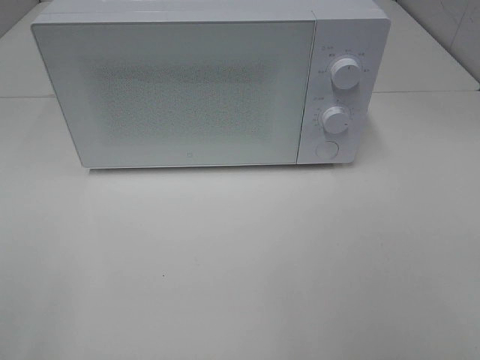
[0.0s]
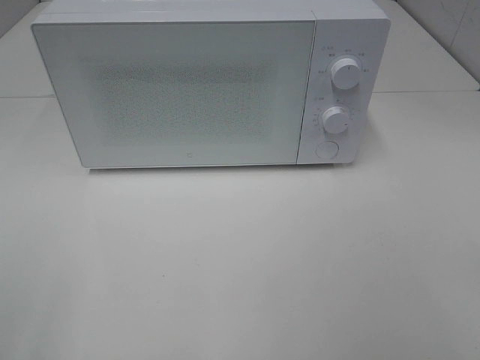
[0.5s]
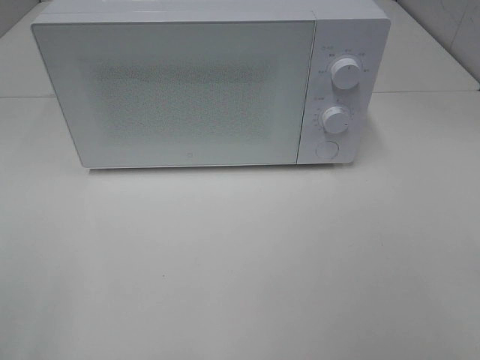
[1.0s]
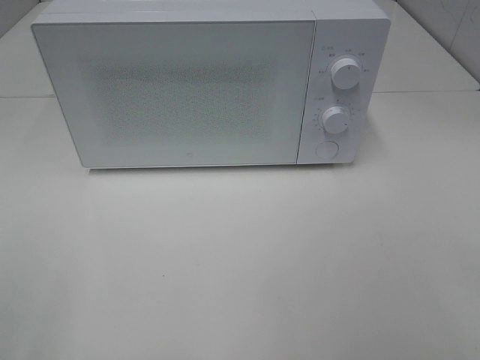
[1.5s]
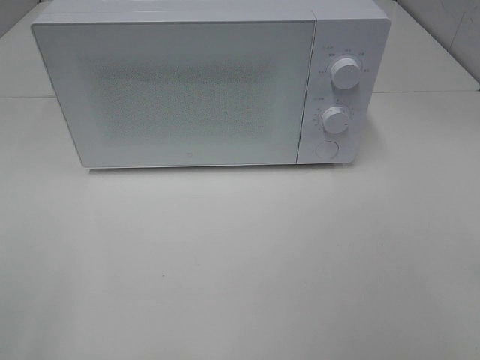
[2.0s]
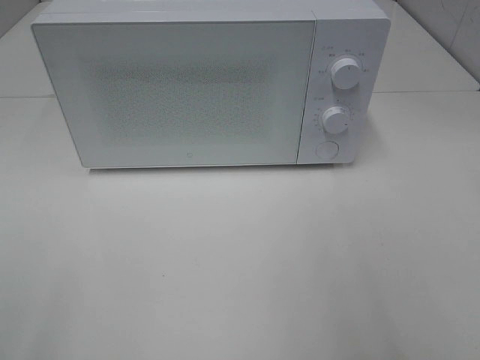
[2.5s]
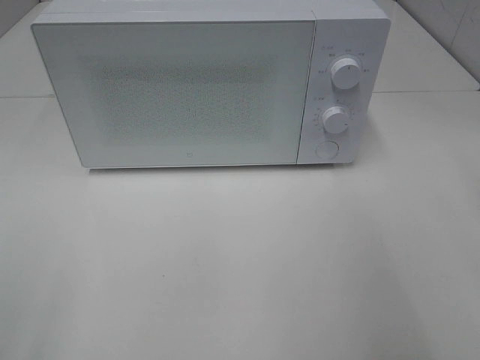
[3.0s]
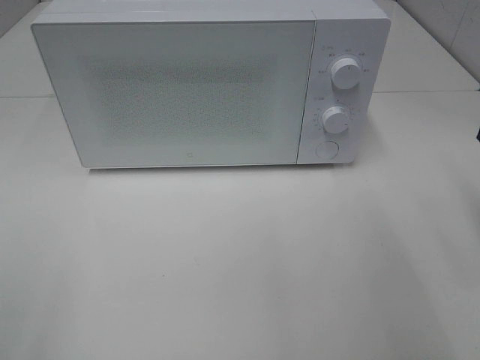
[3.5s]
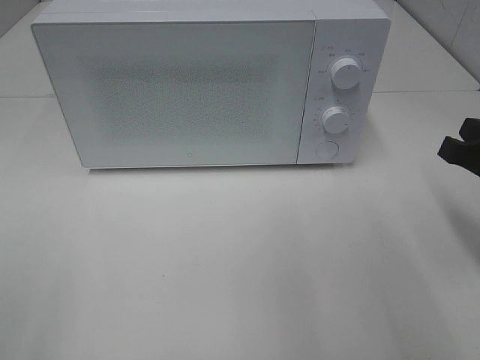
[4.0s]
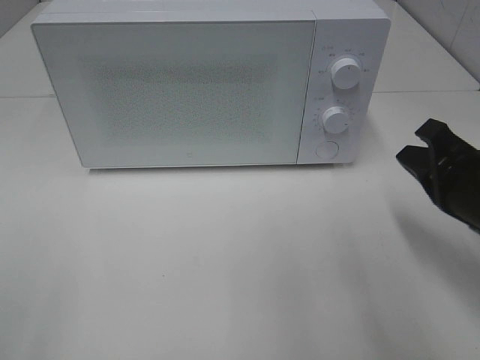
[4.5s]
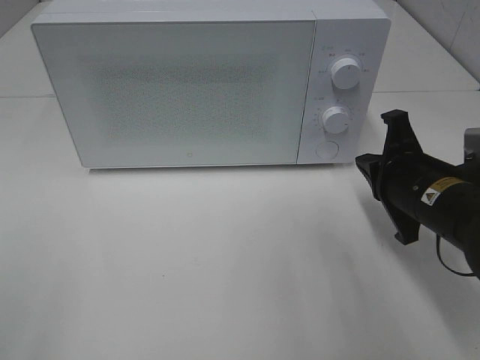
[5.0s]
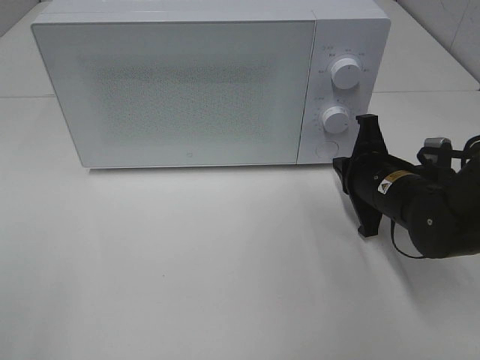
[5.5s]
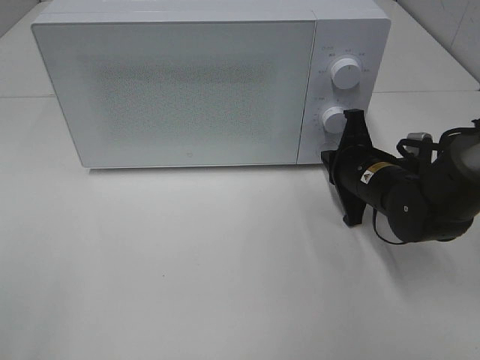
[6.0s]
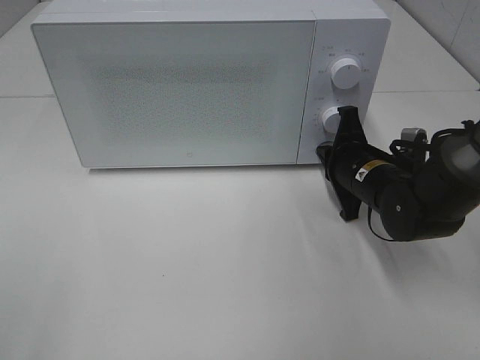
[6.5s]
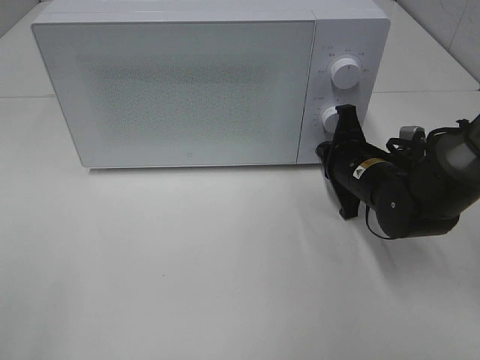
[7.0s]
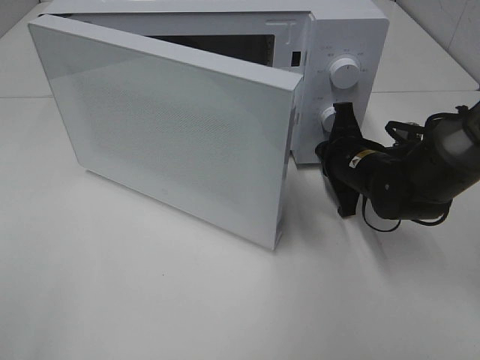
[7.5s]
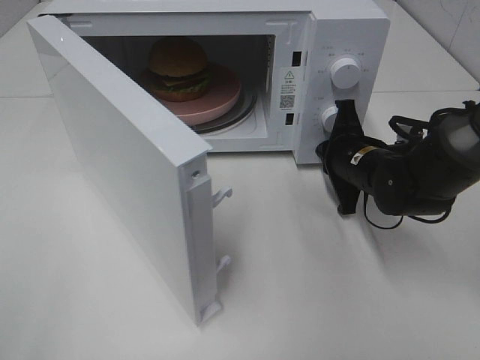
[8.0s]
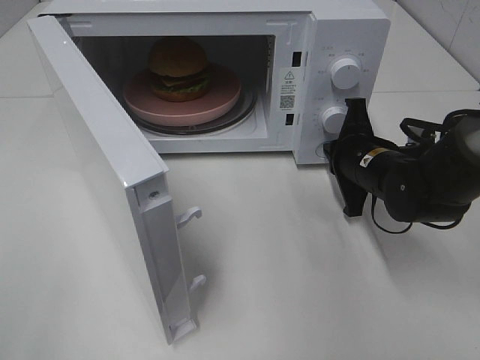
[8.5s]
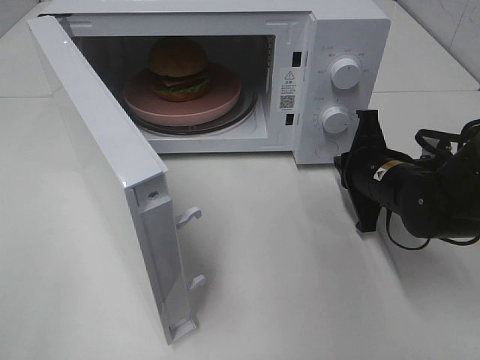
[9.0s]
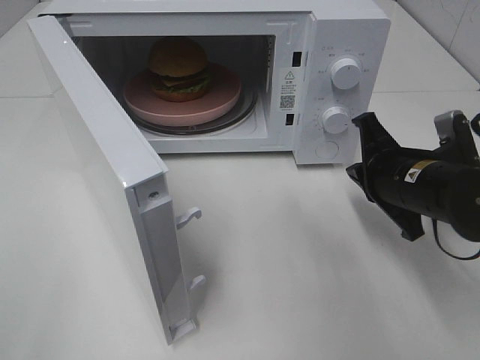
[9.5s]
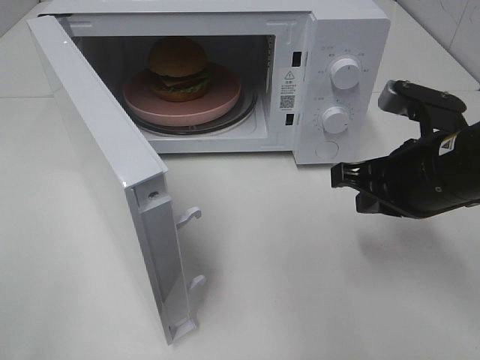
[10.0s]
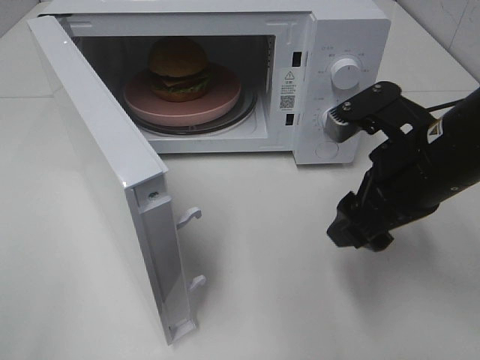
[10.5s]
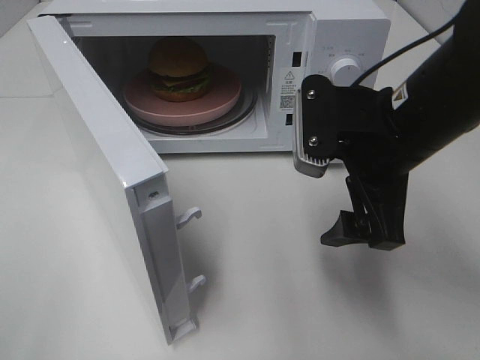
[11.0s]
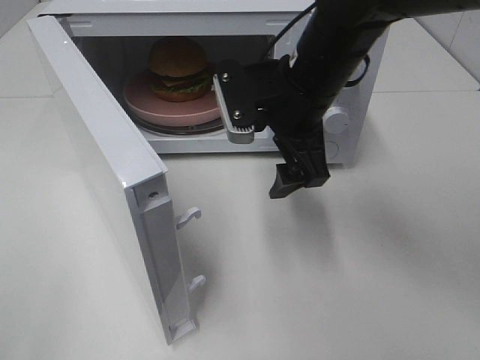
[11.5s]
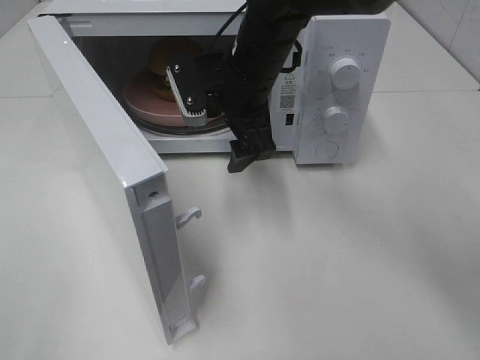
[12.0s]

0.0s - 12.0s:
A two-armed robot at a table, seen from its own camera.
Task of the whole recording: Heat the burger.
Step, 0.0s - 8.5s: Right hand: press the switch.
2.0s - 4.0s: The right gripper goes some 25 cm forward and downward, and closes its fingers.
4.0s - 6.0s: The right gripper shifts about 20 cm forward, to the left and downward.
8.0s - 10.0s: The right gripper is displaced backward and upward by some 15 cm.
10.0s - 12.0s: The right gripper is displaced to the left and forward by about 25 cm, and opens up.

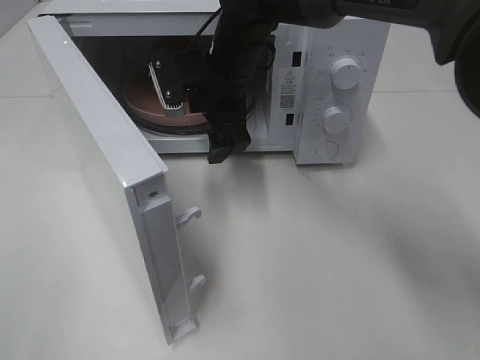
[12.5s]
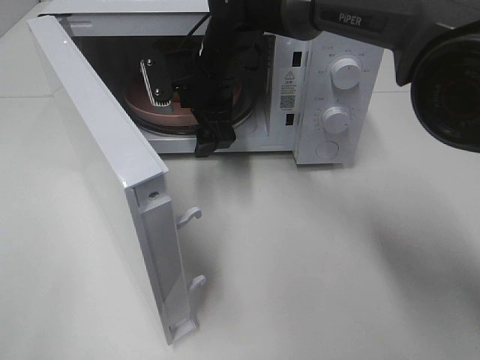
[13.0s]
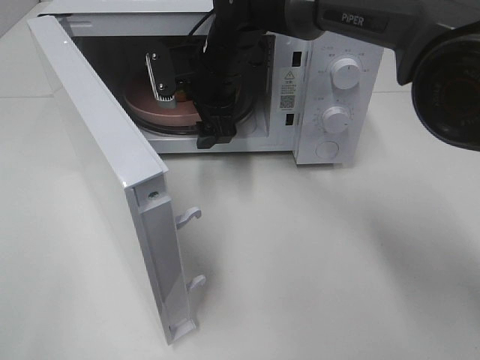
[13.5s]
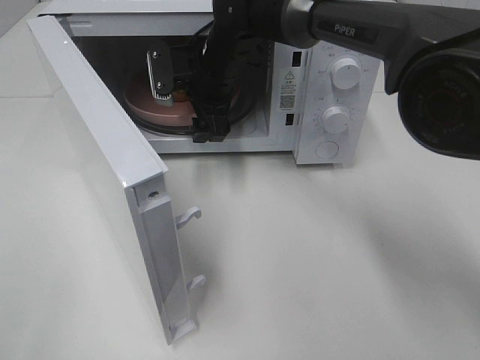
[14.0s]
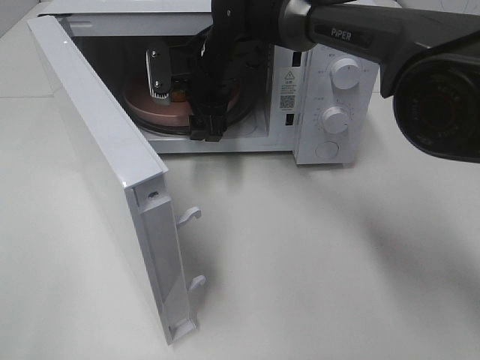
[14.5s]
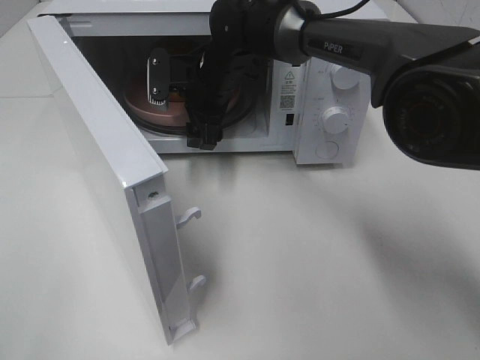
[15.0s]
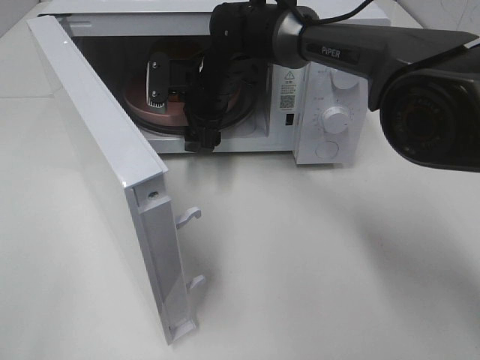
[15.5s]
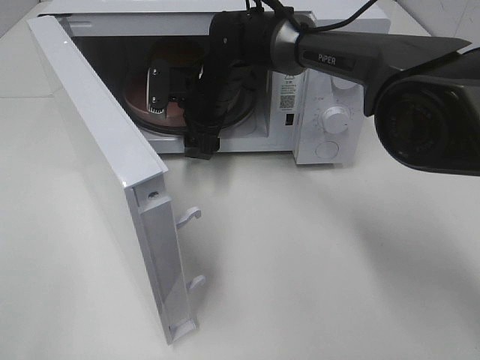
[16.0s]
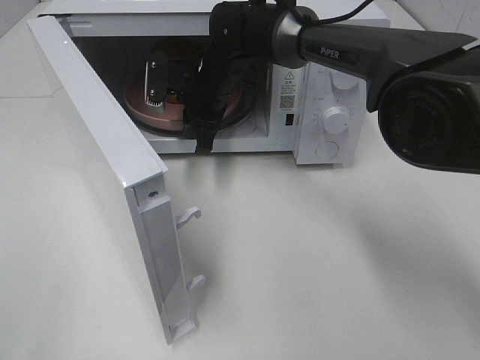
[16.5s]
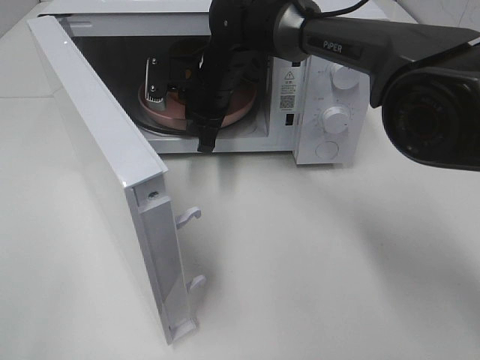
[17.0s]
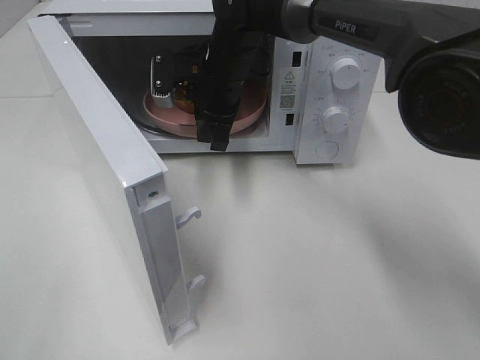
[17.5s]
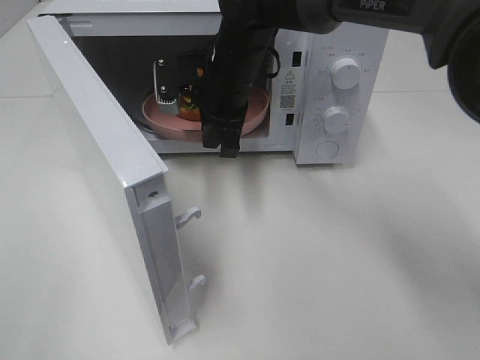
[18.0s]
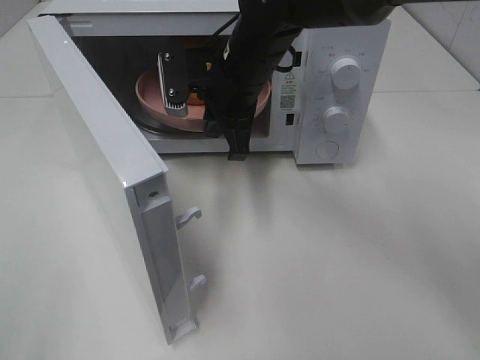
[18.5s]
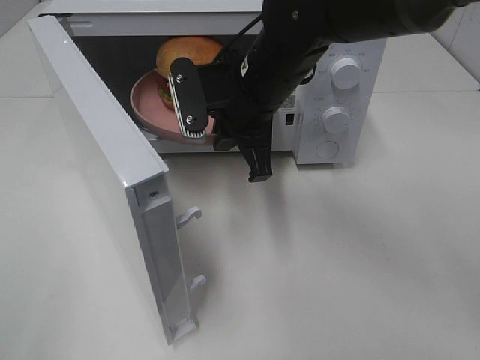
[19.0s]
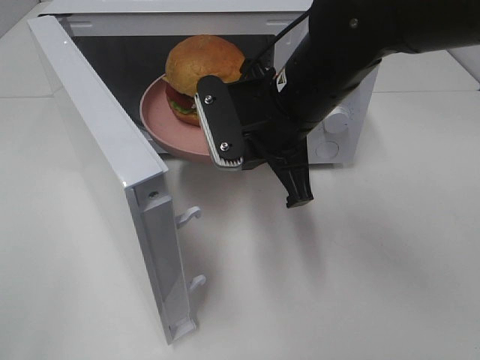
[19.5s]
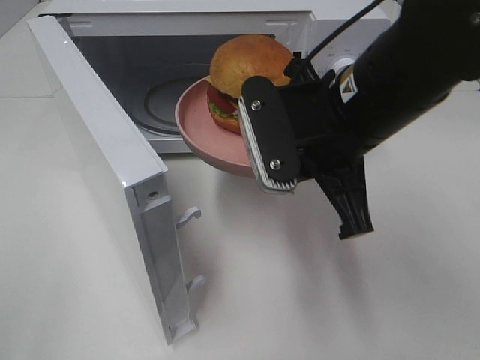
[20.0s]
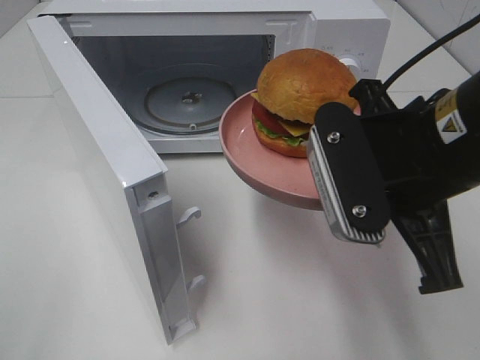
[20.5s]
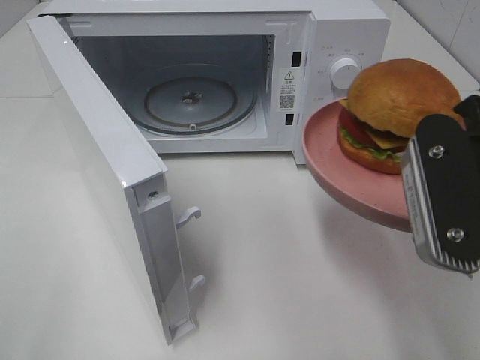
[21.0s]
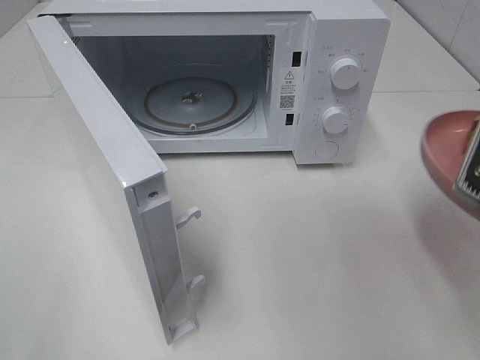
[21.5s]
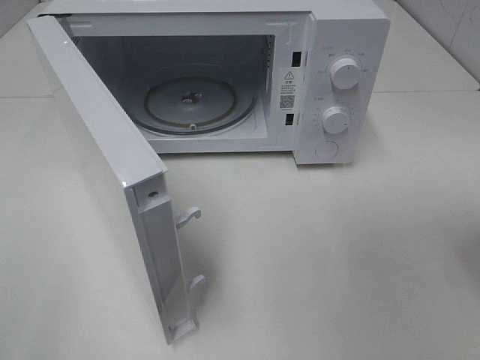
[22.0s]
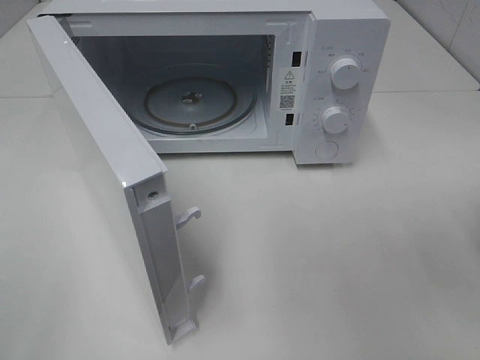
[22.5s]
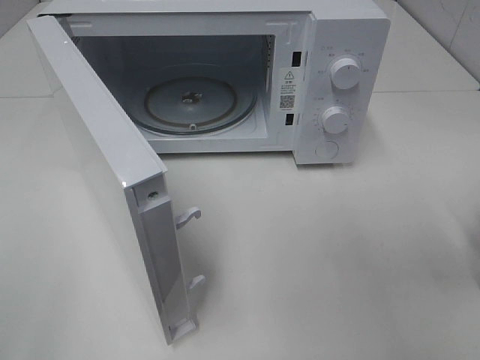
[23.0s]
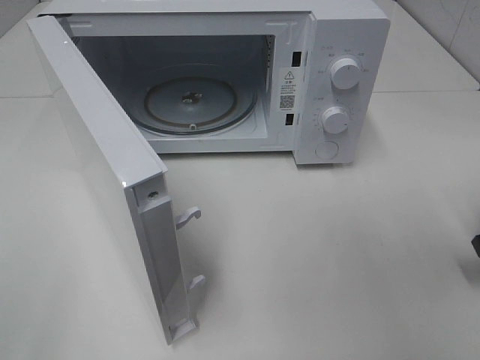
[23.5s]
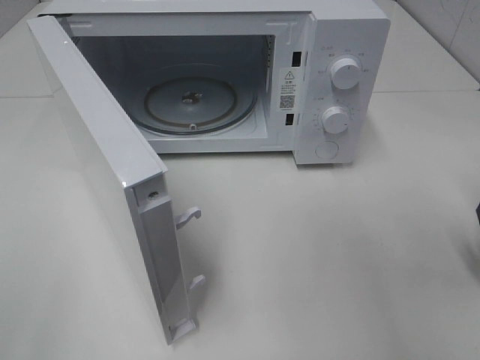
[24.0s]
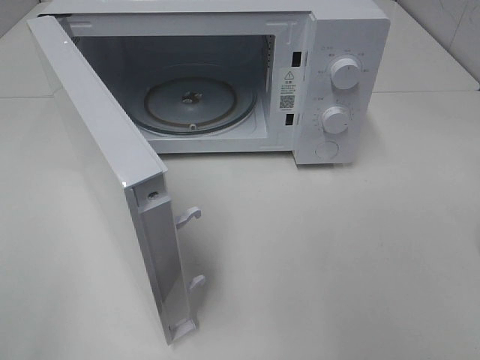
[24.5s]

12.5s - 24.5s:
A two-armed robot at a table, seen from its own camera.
Task of the whole recording: Heat the burger.
Step, 12.5s - 16.5s: Right hand: grab the plate with the hamburger.
Step, 17.0s - 23.0s: Right hand: place the plate on the table.
12.5s - 14.5s: The grippers move only a little.
14.5s - 16.5s: The right gripper closes up.
16.5s - 18.5s: The right gripper goes approximately 10 cm backward and upward.
18.5s - 20.5s: The right gripper goes approximately 25 cm backward and to the right.
20.5s - 22.5s: The right gripper goes approximately 20 cm to the right.

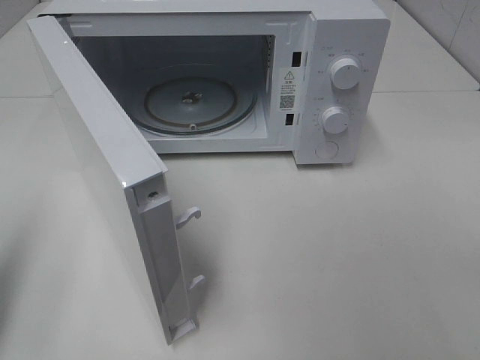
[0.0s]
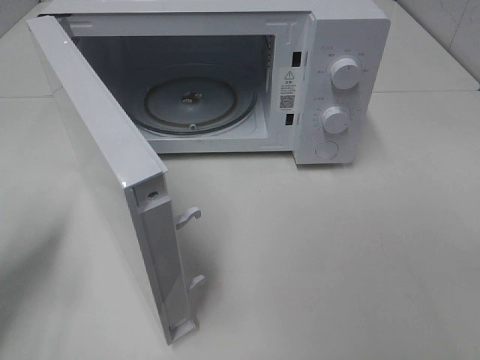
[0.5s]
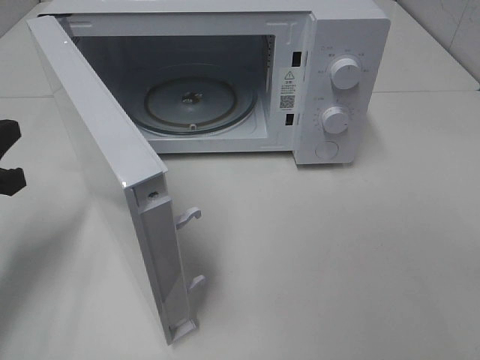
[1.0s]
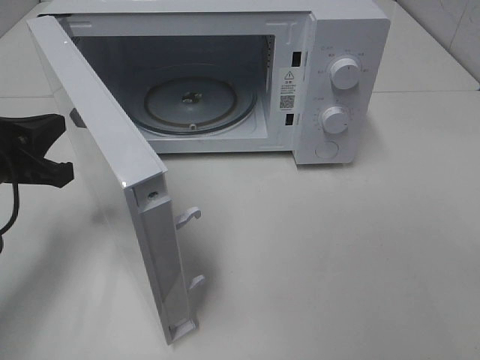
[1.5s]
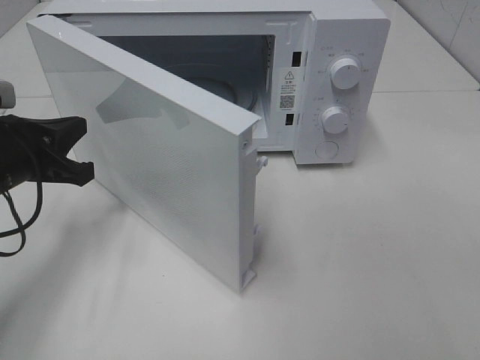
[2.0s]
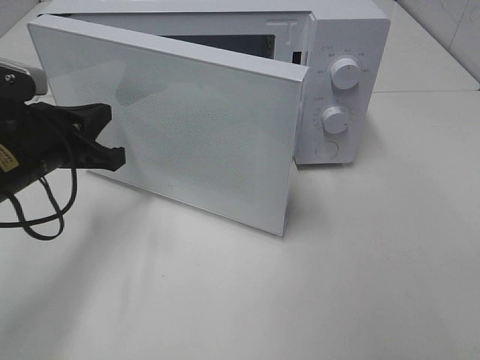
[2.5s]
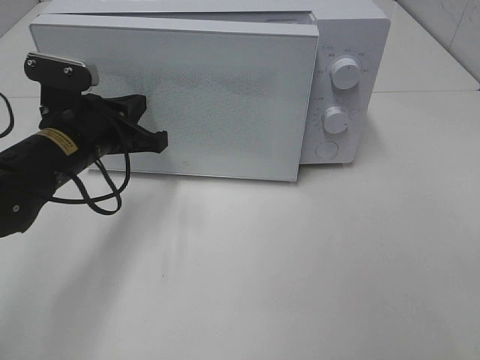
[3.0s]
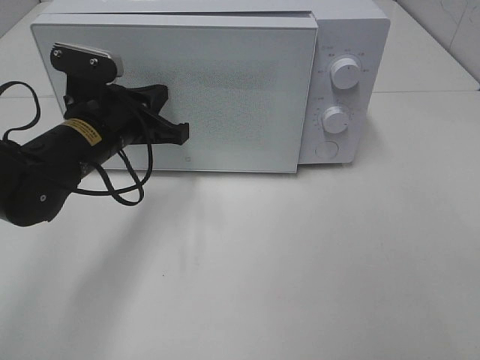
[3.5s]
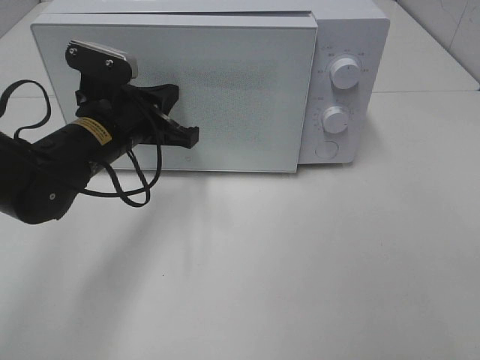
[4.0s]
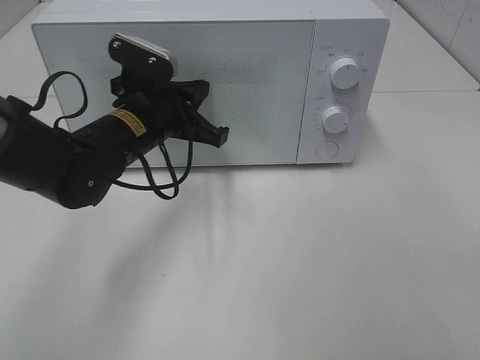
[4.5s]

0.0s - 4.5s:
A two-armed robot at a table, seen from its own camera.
Task of the whole recording: Heat the burger.
0.0s - 2.0s: The left gripper heads forward, to the right and downward, covering some 15 cm.
2.0s - 4.5s: The left gripper shifts some 15 cm to the right and forward.
